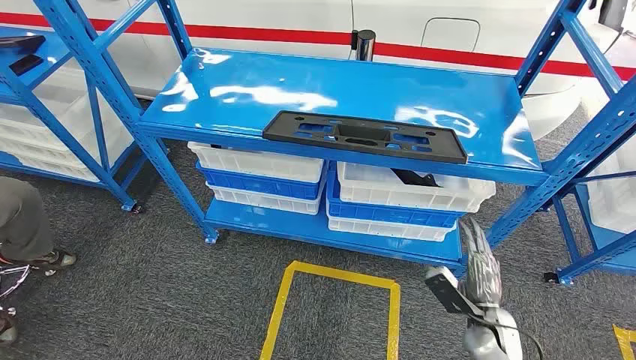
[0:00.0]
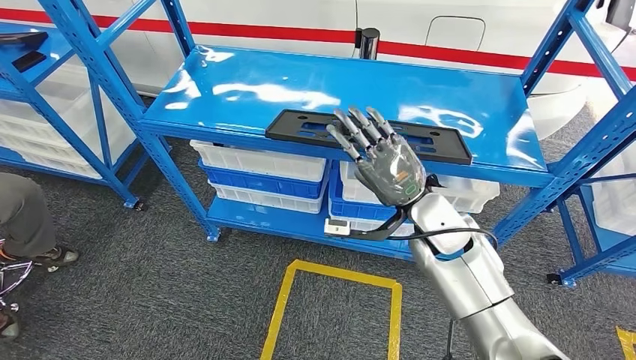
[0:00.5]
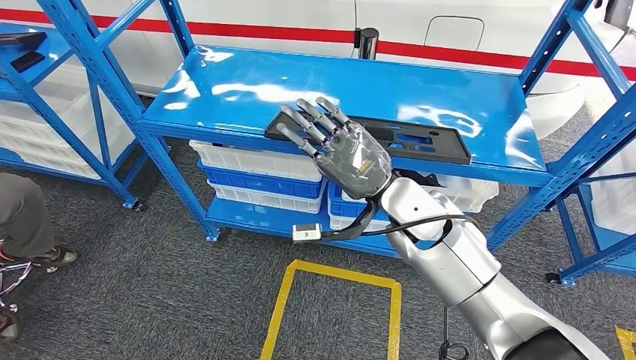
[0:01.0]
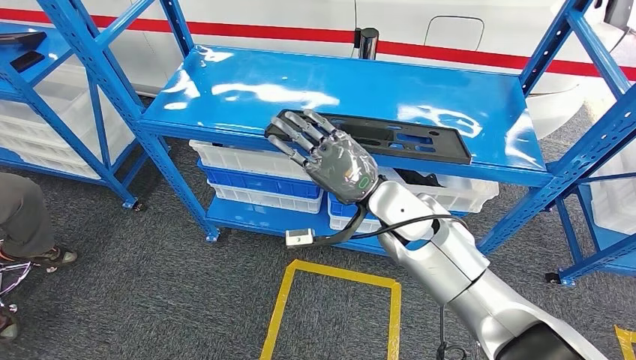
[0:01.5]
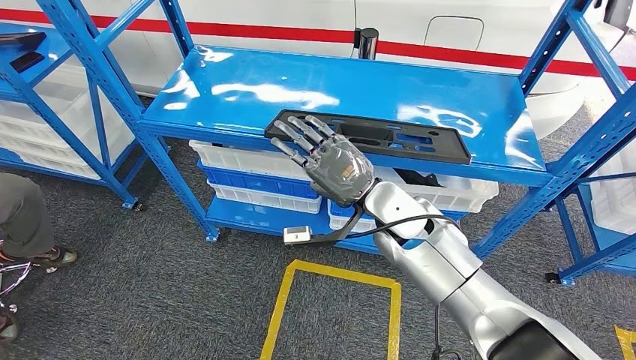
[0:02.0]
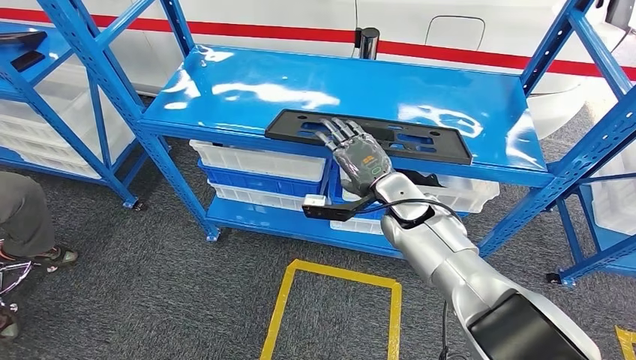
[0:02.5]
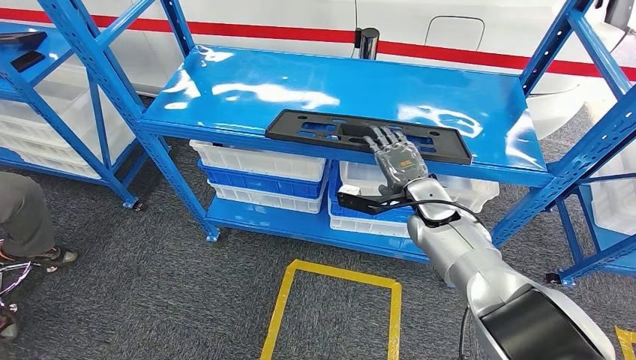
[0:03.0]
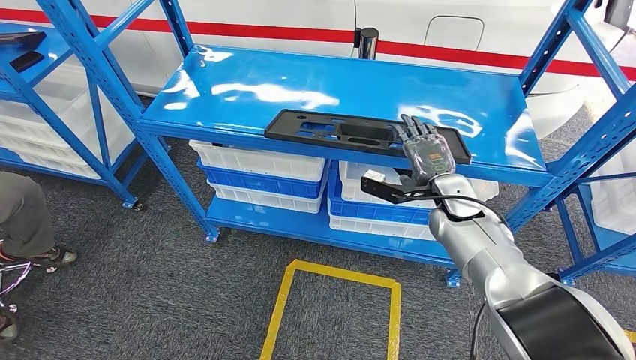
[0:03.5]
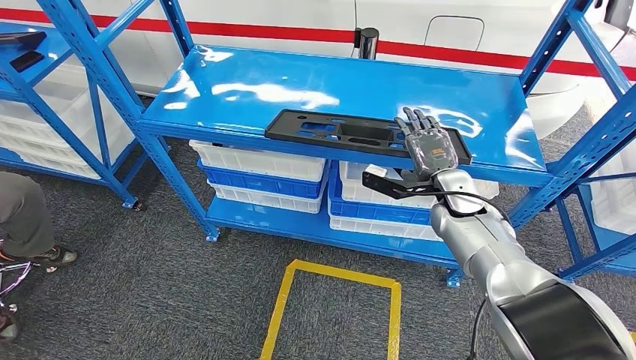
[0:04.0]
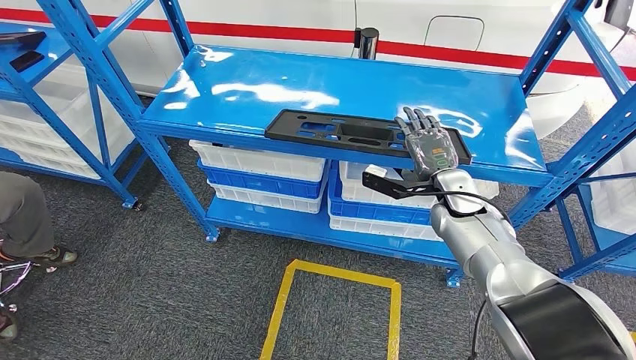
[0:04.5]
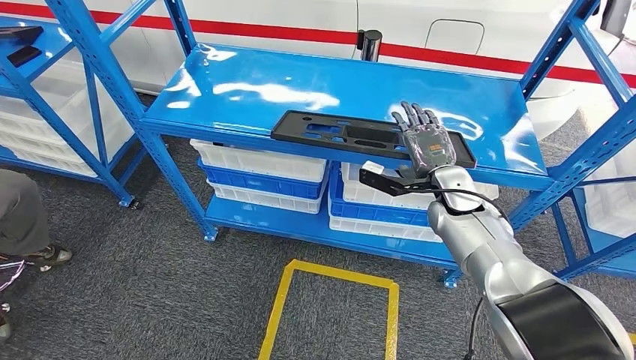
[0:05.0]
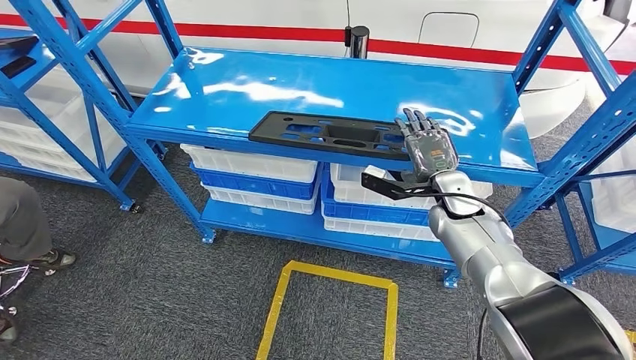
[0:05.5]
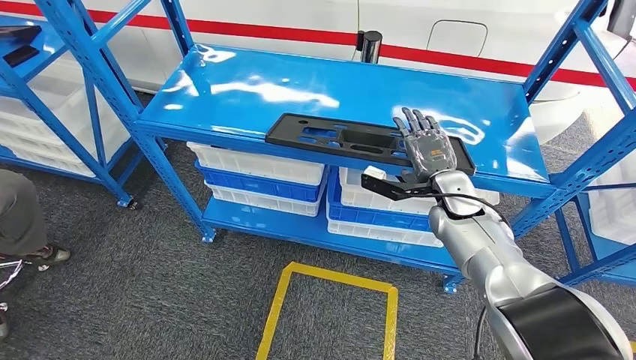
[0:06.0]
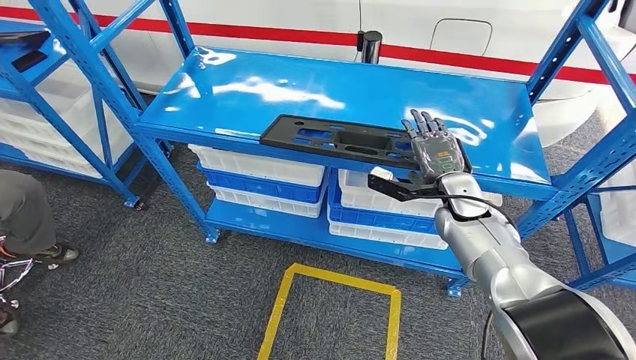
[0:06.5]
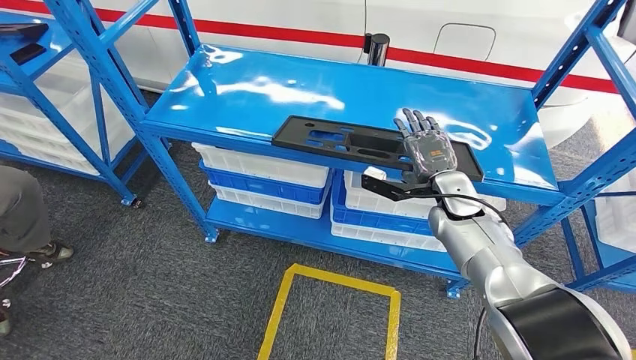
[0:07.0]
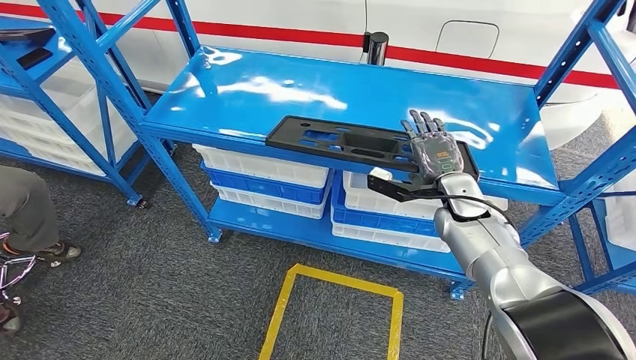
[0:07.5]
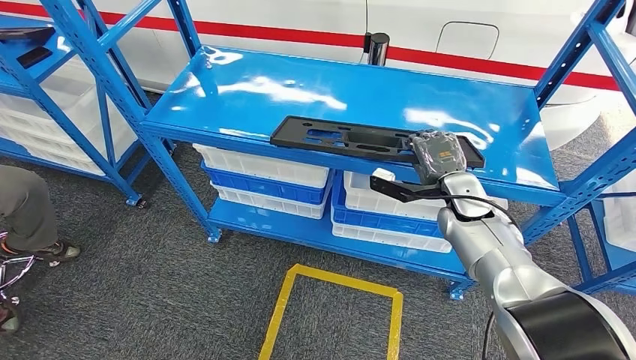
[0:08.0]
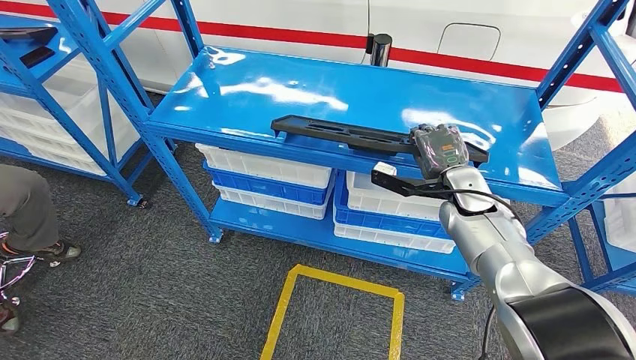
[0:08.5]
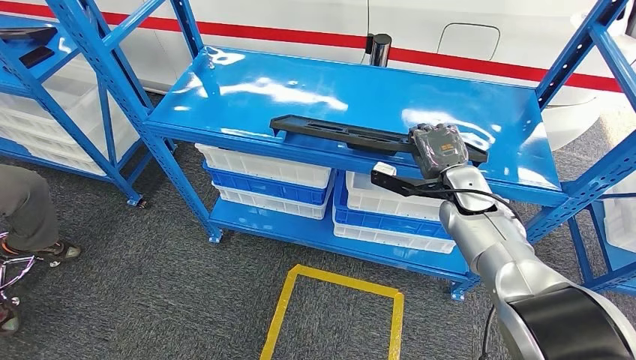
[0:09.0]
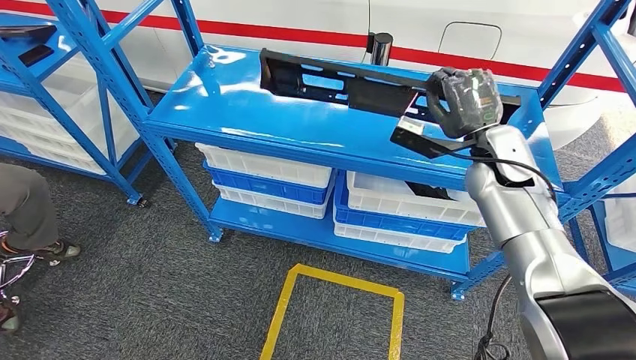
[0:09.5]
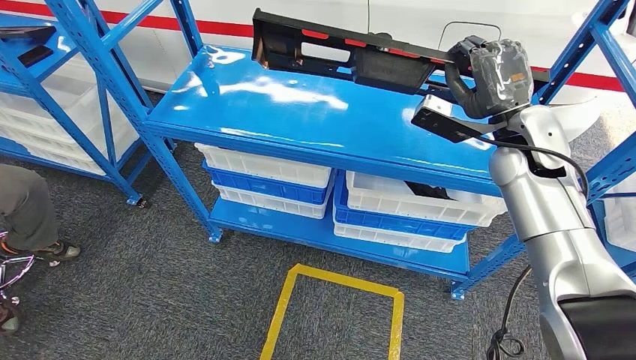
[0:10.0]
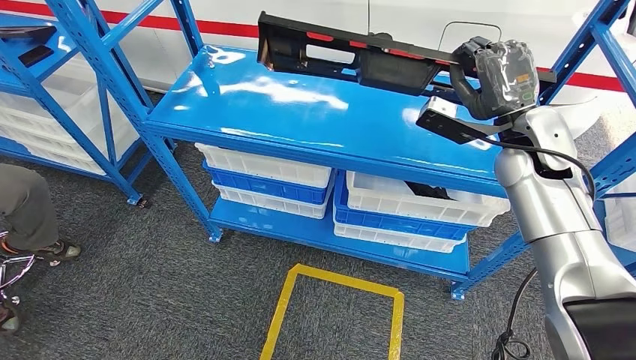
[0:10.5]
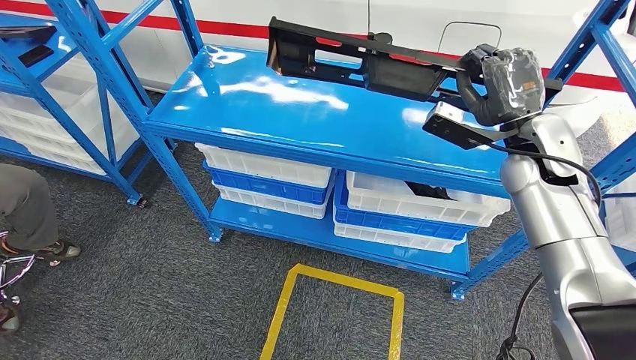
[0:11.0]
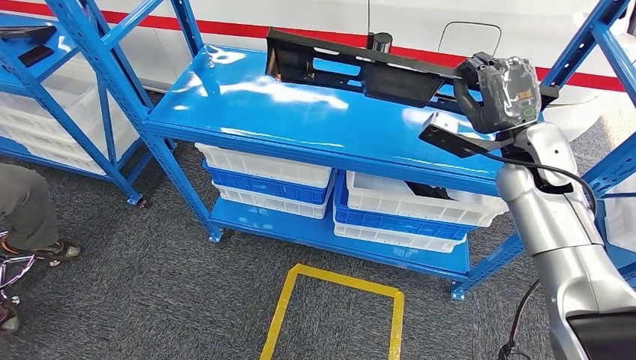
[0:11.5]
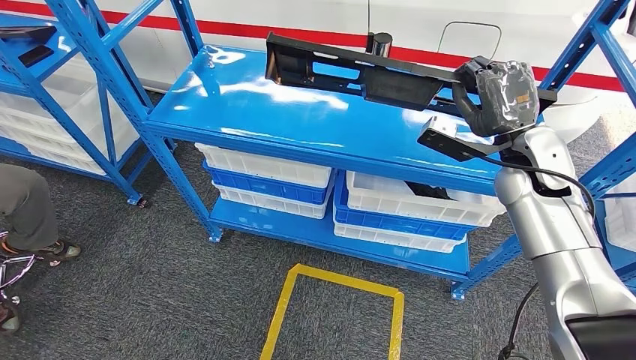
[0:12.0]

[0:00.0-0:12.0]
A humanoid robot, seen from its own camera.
Step, 0:00.0 to 0:11.0: Pick up the large material from the shelf.
0:02.0 to 0:04.0: The right hand moves to the right and forward, roughly 15 cm.
0:10.0 to 0:12.0: The hands move only a little.

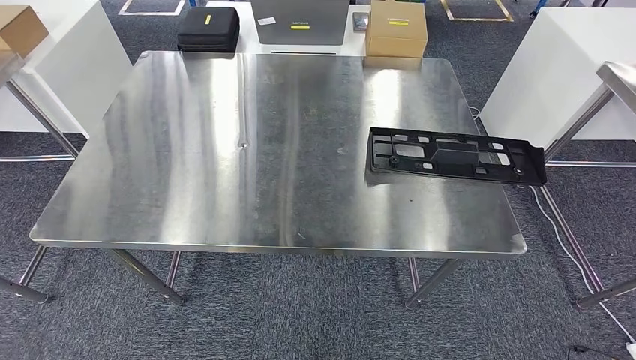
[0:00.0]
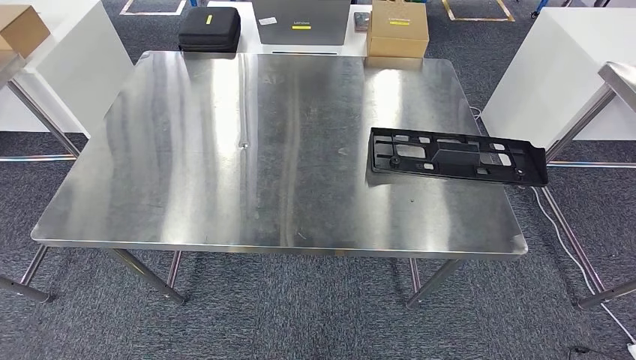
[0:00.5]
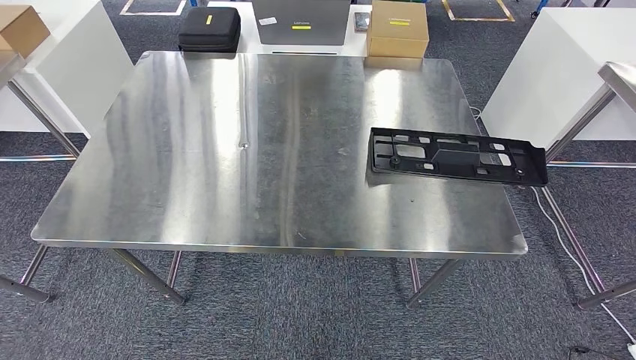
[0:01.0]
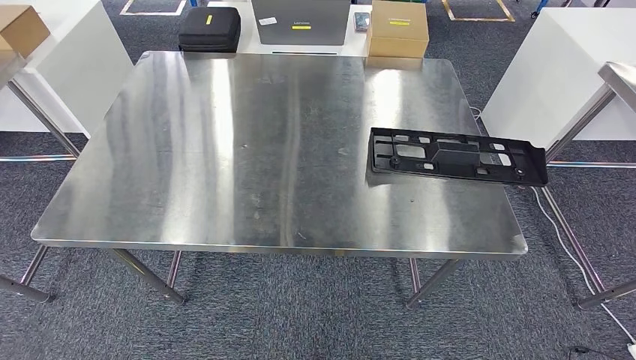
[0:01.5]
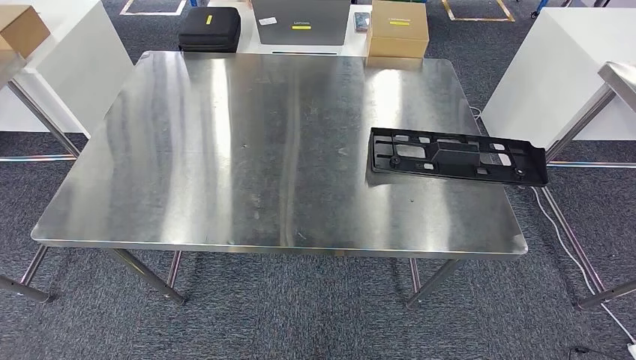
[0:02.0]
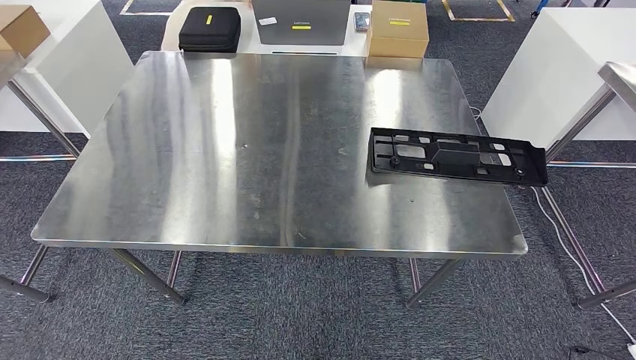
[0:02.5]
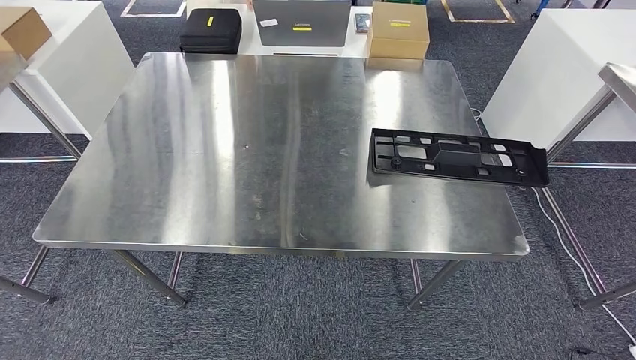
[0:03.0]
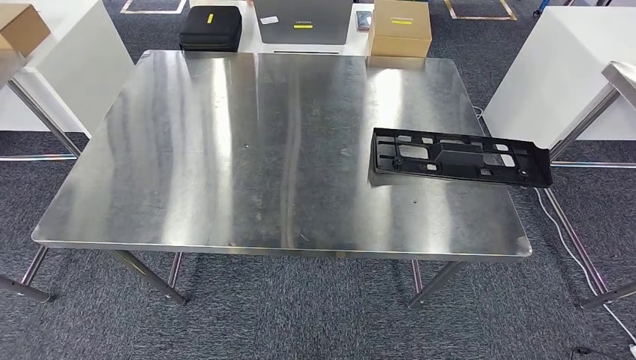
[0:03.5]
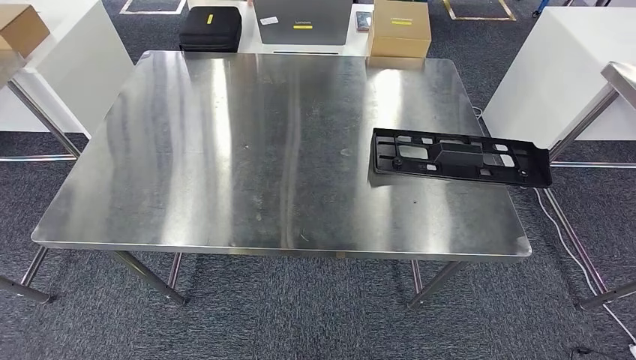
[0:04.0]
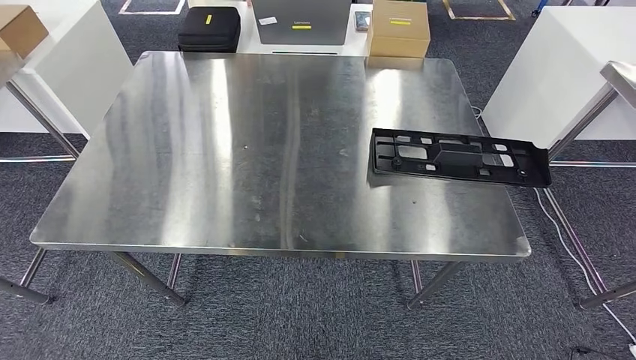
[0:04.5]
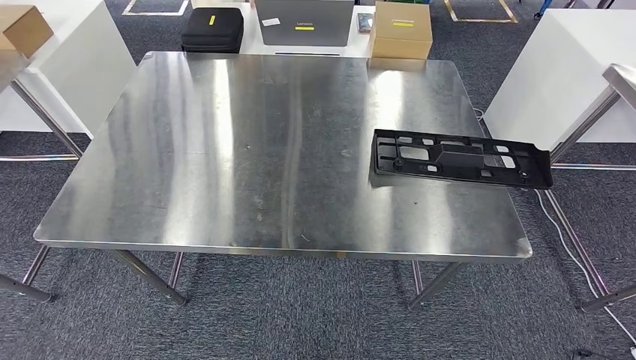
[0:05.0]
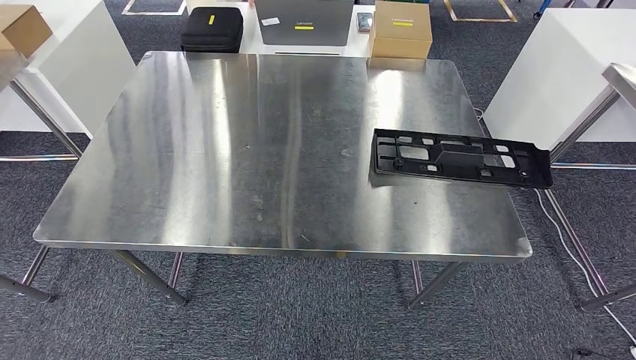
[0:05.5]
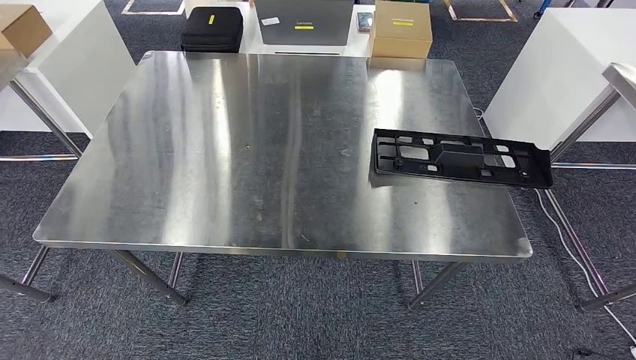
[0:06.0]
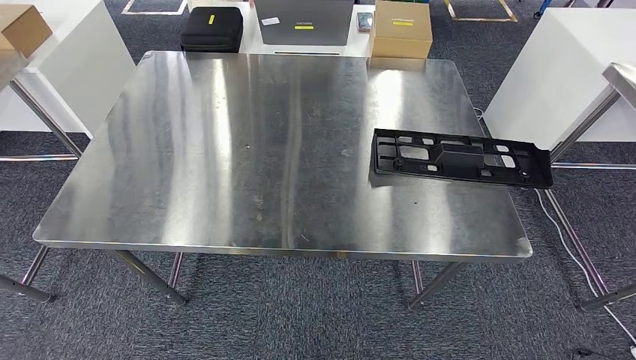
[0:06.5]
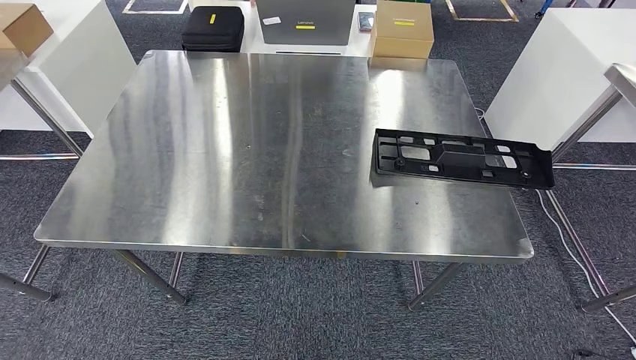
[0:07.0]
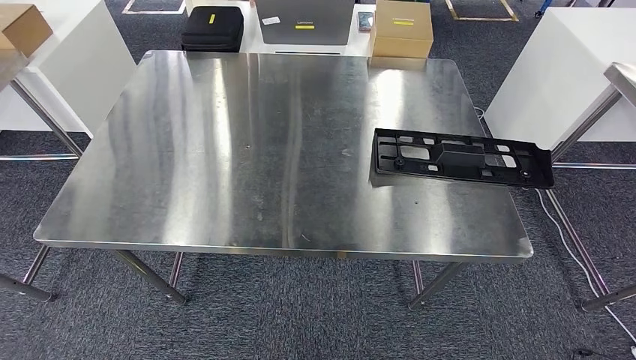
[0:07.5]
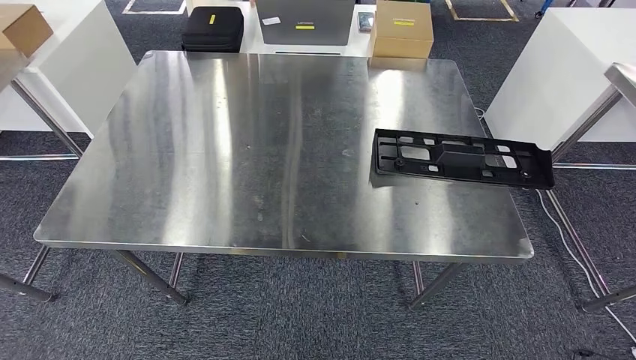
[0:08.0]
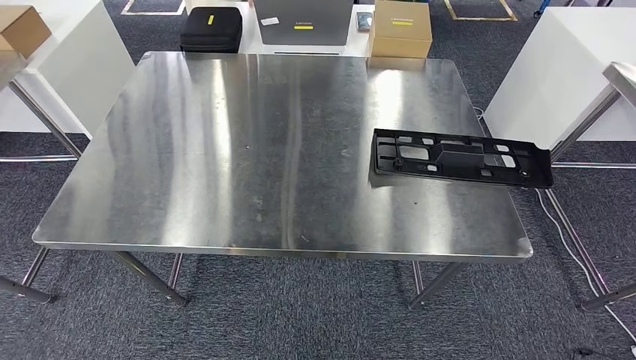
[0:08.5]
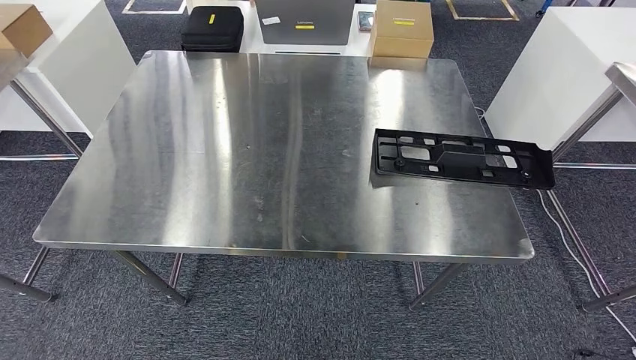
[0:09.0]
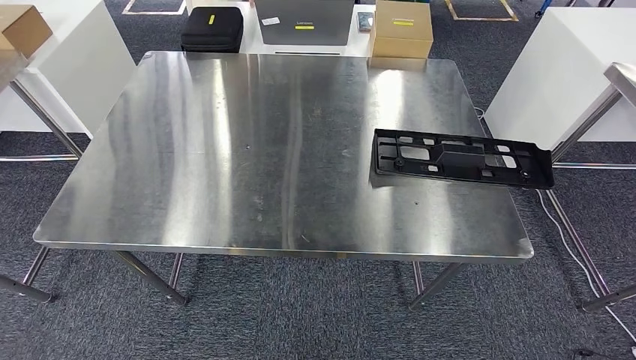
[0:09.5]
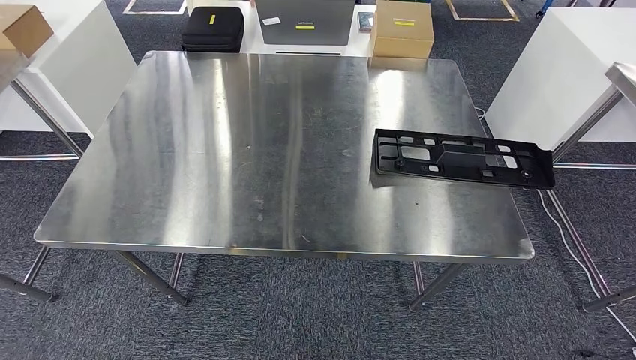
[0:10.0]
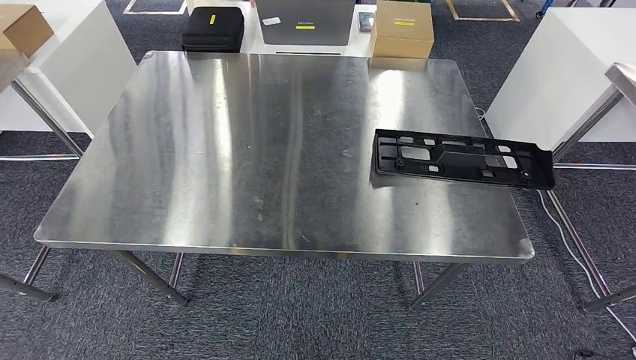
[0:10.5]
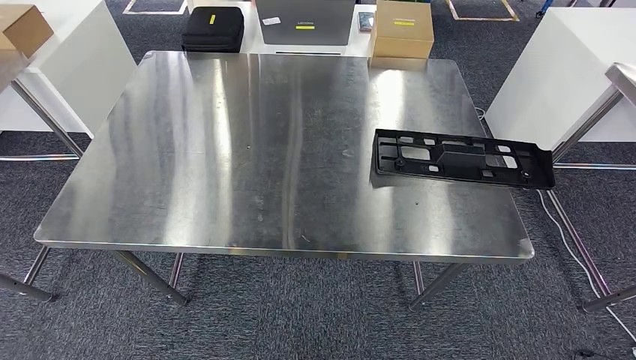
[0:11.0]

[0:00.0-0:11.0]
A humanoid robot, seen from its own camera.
0:00.0 to 0:02.0: Both hands stay about where they are.
0:02.0 to 0:03.5: The right hand travels to the right and backward by approximately 15 cm.
0:03.5 to 0:05.5: The right hand moves downward, approximately 25 cm.
0:05.5 to 0:07.5: The right hand travels upward by approximately 5 cm.
